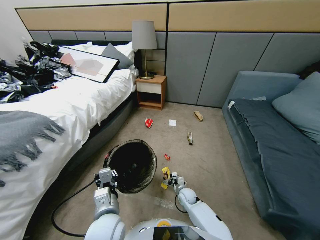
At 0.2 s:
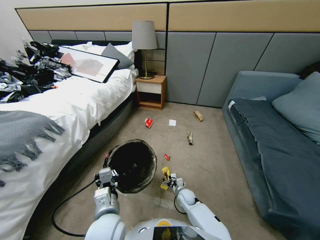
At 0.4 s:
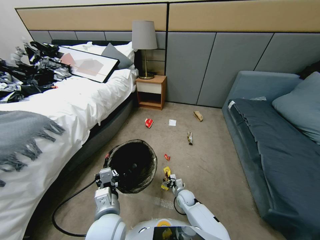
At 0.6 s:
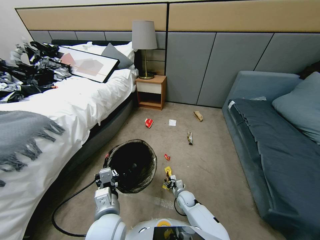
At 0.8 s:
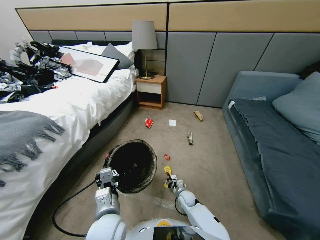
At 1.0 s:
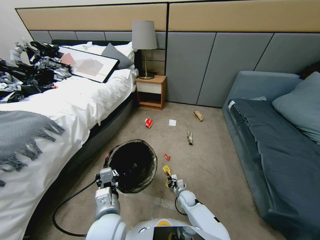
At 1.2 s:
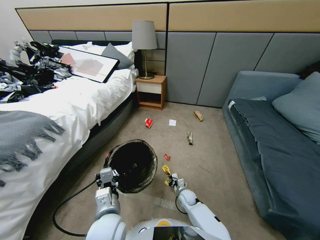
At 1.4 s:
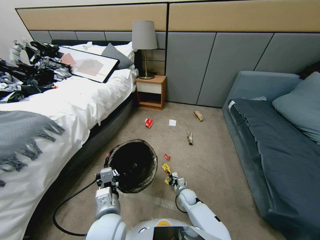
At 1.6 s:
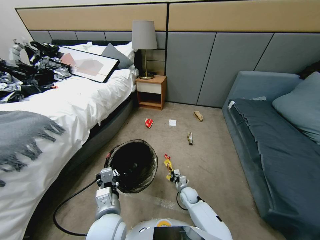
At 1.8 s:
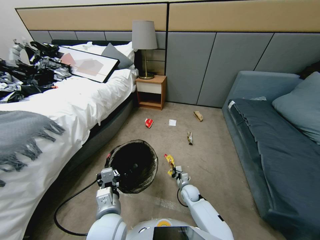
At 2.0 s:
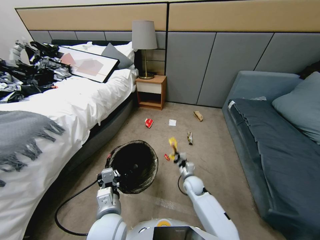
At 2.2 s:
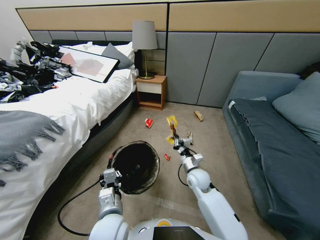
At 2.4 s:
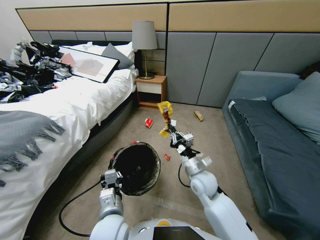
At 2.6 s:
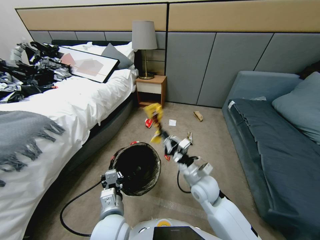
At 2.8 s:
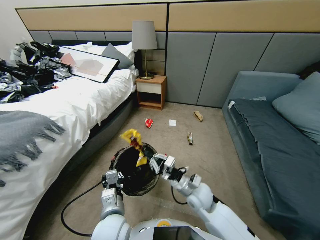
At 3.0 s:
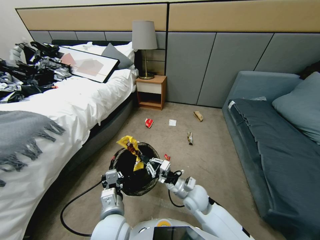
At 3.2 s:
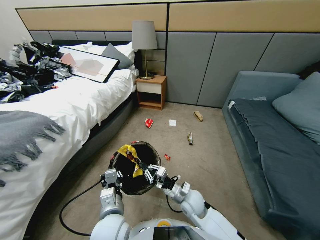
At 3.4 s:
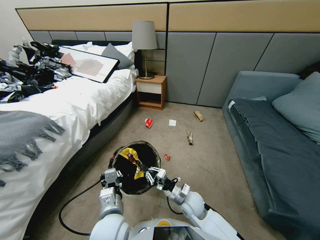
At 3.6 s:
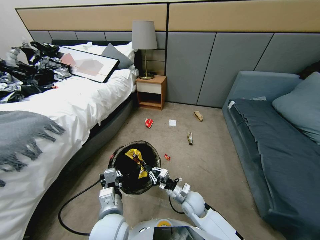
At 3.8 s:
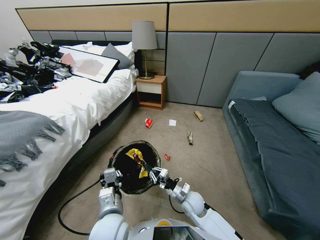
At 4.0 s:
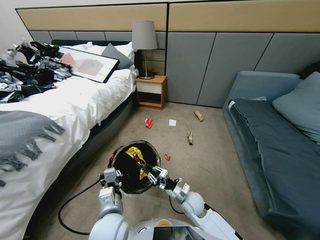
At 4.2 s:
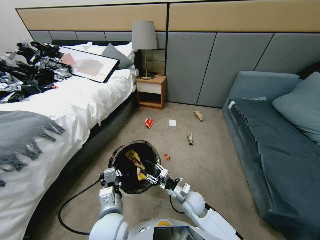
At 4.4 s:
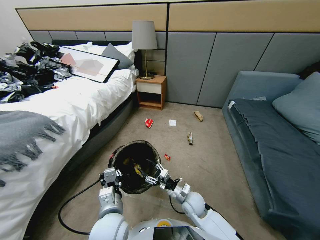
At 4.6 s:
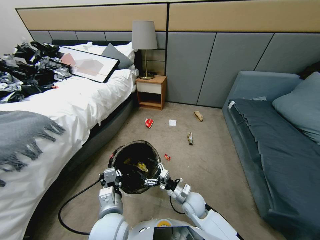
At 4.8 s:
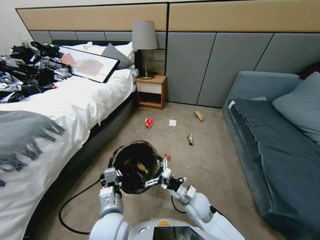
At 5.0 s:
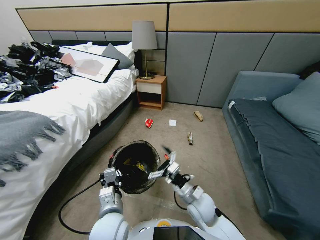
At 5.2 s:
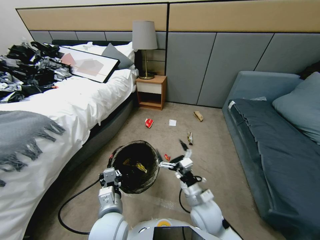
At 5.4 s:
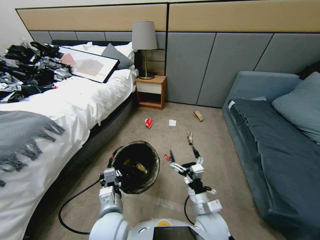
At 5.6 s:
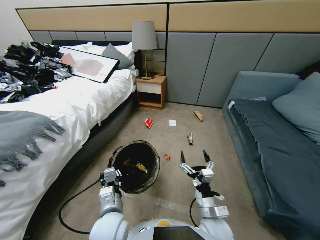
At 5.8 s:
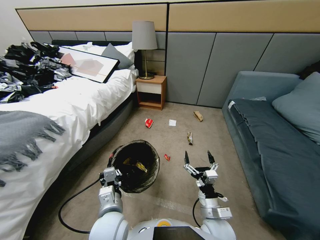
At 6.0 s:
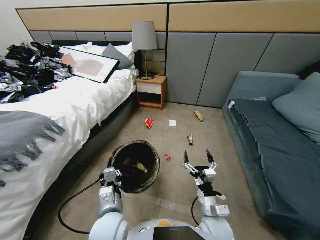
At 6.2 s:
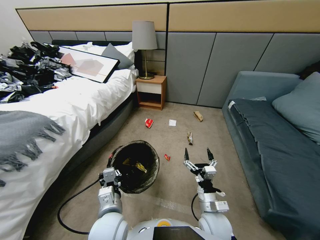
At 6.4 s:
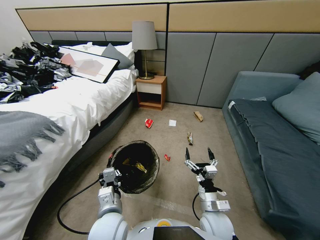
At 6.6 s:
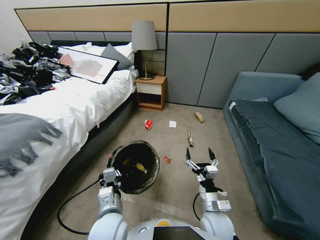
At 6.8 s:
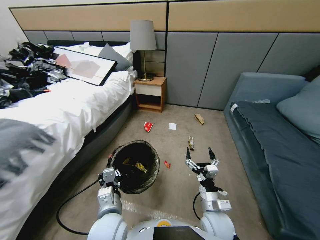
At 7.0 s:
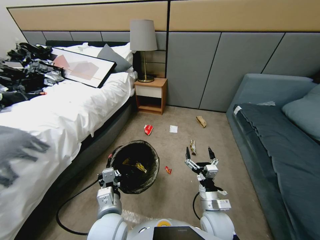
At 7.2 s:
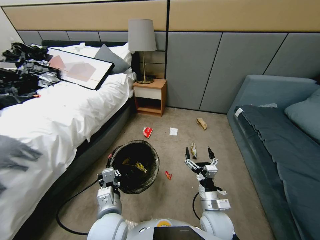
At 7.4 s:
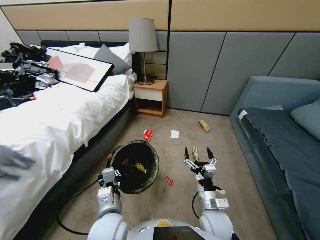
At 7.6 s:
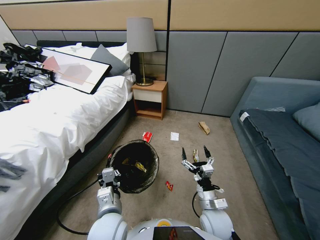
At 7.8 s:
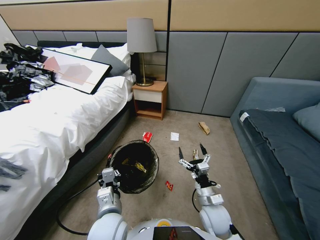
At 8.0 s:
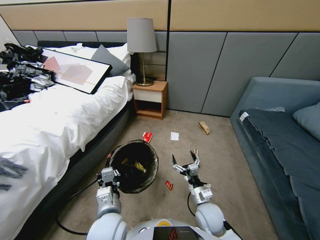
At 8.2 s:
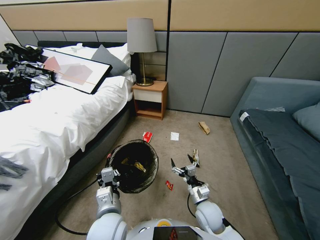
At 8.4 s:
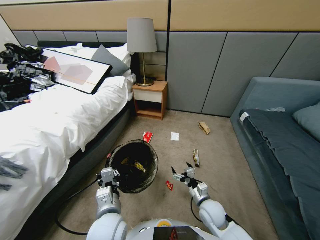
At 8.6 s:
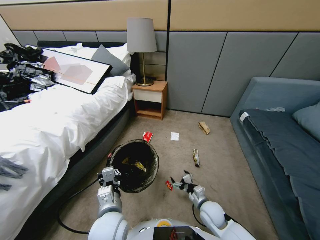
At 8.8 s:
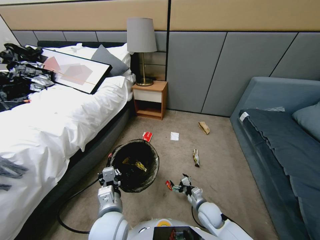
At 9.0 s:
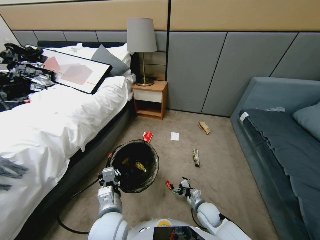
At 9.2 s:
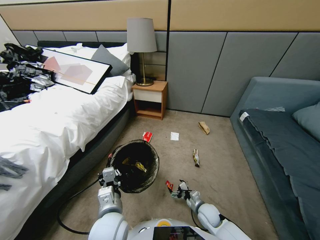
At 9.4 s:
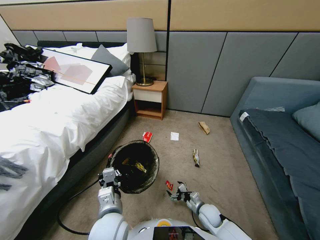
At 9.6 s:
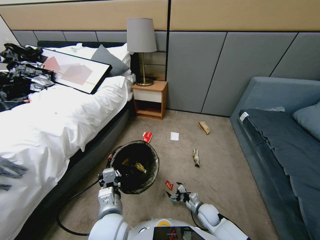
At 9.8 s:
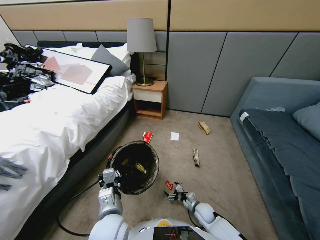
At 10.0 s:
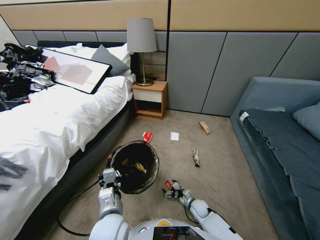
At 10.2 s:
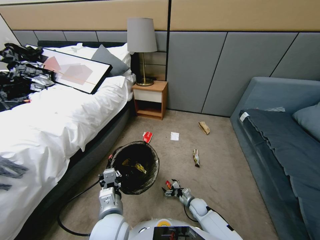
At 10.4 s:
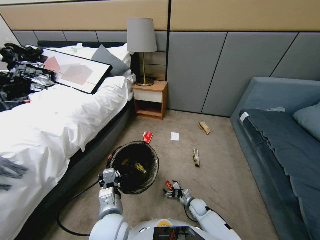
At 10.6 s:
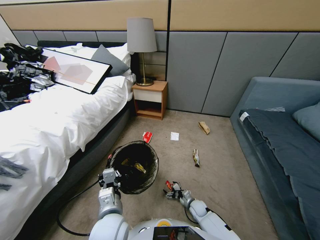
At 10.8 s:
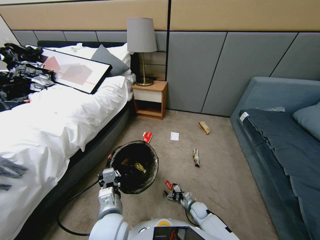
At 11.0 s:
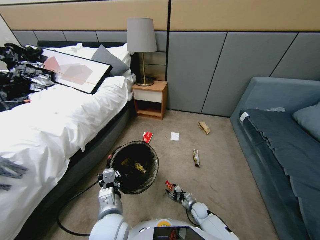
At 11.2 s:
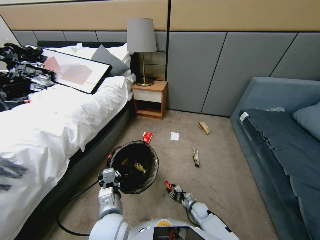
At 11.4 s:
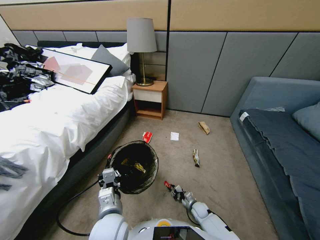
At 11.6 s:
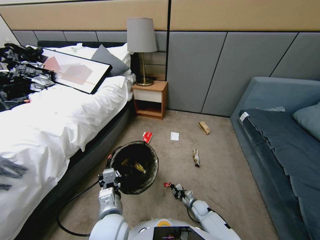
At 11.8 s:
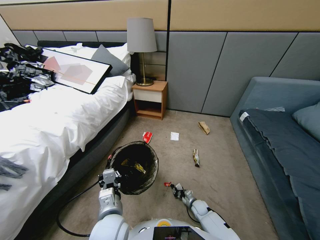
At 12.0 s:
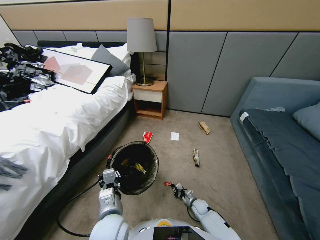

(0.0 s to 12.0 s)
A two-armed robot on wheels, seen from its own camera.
Task of the whole recording: Pick up the trash bin, then pick up the garbage from the floor and place it into the trash bin.
0.0 s - 1.6 s: The right gripper closes its fingers.
1.6 s - 3.0 s: The right gripper goes some 20 cm upward and backward.
3.0 s - 4.4 s: The right gripper shifts by about 5 cm, and opens up.
4.4 s - 6.0 s: The right gripper is displaced backward and upward by some 10 cm.
7.6 s - 9.0 s: The right gripper goes approximately 15 cm downward.
9.0 s - 10.4 s: The right gripper shifts approximately 10 cm downward.
10.4 s - 12.0 s: The right gripper closes its fingers.

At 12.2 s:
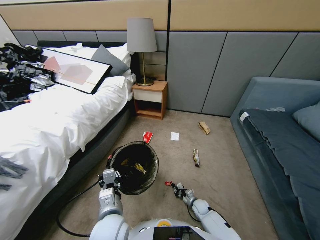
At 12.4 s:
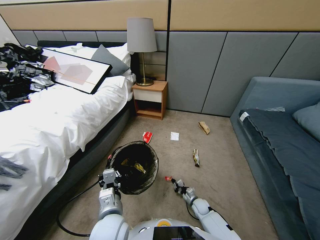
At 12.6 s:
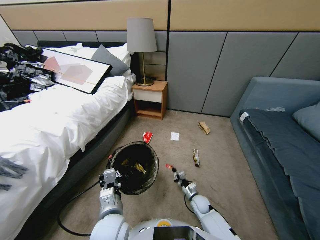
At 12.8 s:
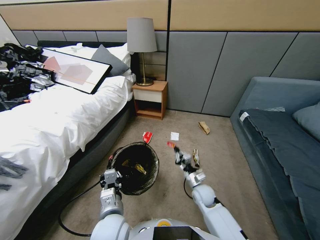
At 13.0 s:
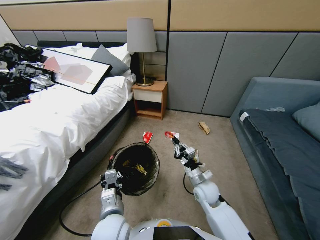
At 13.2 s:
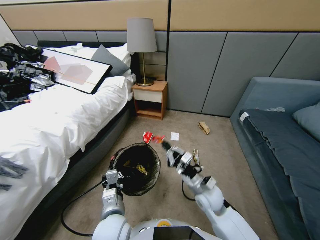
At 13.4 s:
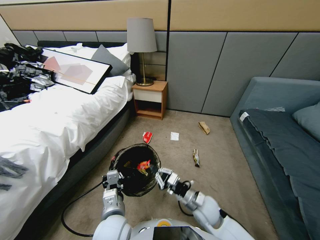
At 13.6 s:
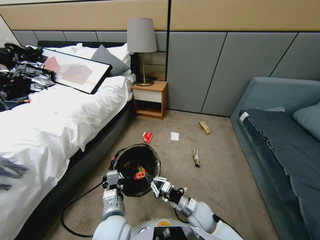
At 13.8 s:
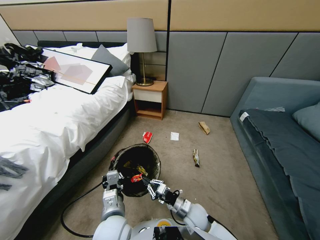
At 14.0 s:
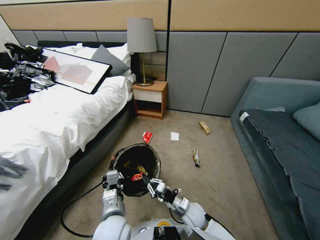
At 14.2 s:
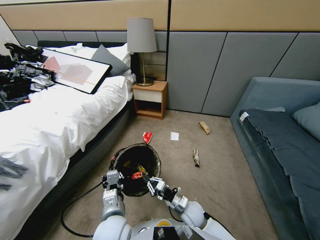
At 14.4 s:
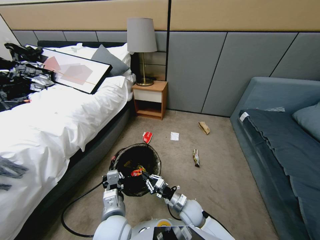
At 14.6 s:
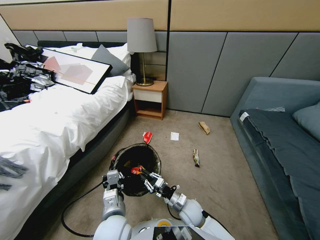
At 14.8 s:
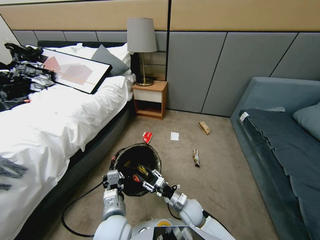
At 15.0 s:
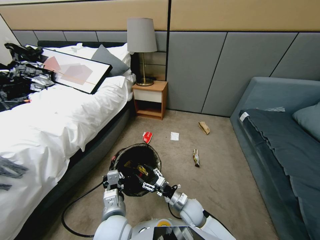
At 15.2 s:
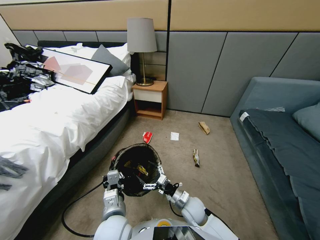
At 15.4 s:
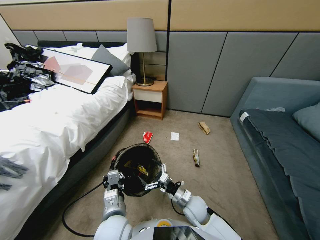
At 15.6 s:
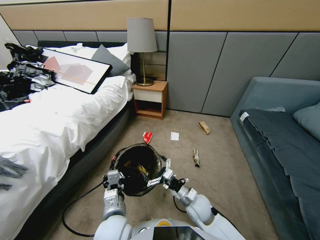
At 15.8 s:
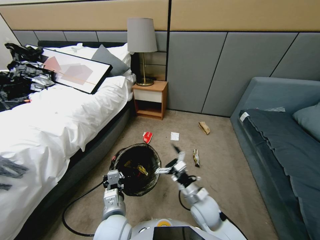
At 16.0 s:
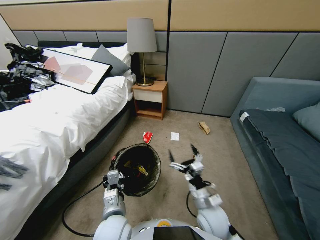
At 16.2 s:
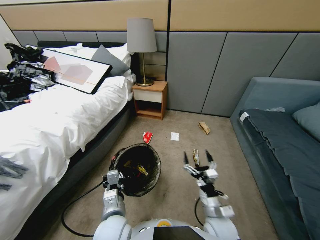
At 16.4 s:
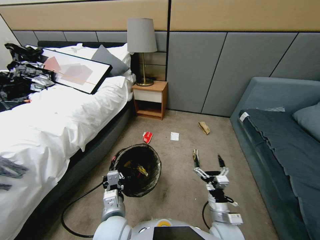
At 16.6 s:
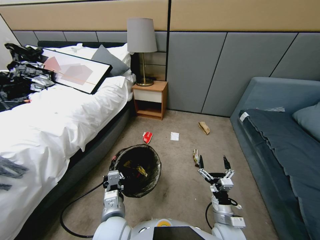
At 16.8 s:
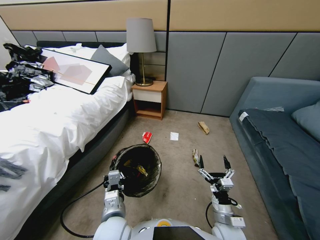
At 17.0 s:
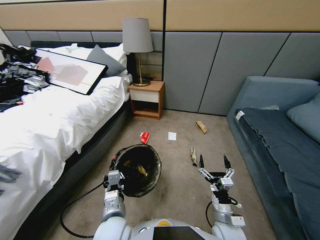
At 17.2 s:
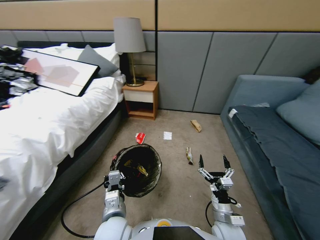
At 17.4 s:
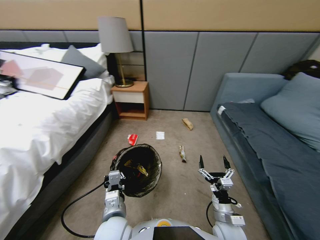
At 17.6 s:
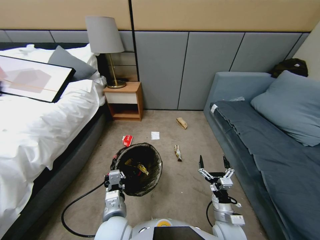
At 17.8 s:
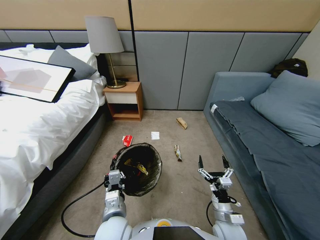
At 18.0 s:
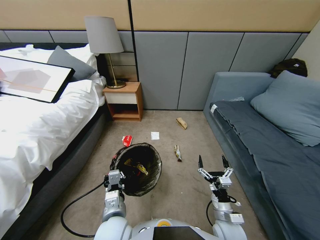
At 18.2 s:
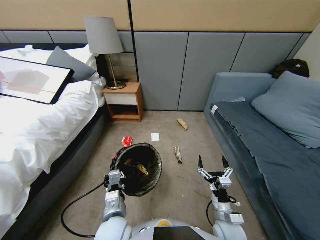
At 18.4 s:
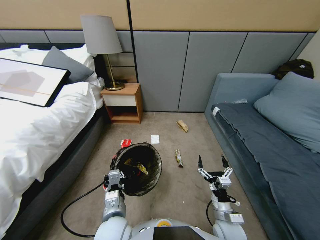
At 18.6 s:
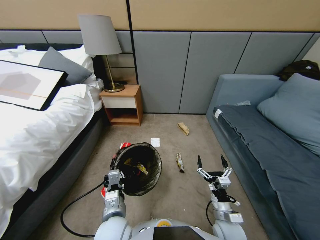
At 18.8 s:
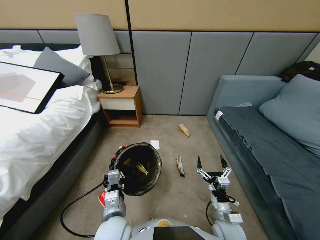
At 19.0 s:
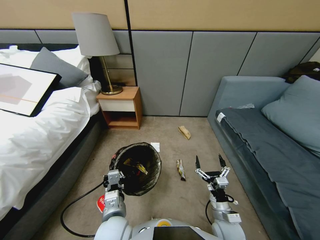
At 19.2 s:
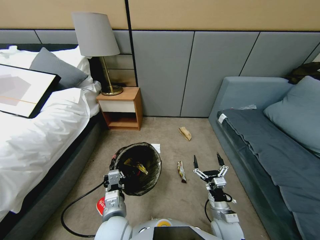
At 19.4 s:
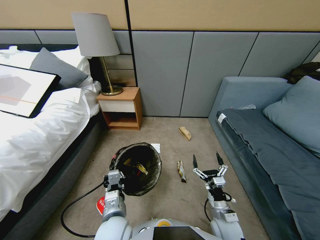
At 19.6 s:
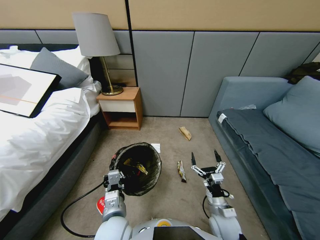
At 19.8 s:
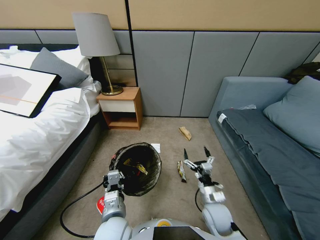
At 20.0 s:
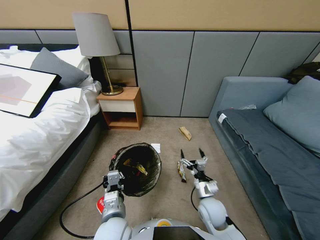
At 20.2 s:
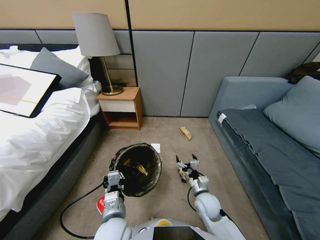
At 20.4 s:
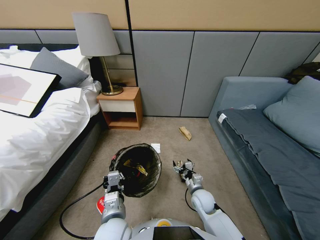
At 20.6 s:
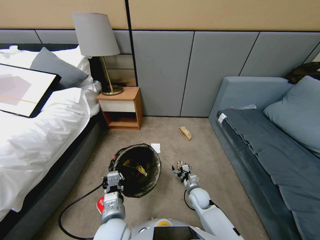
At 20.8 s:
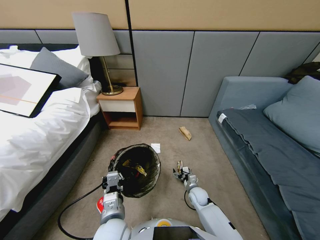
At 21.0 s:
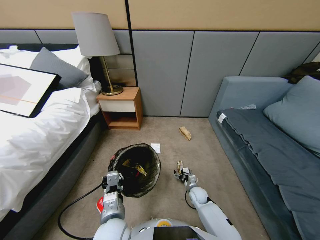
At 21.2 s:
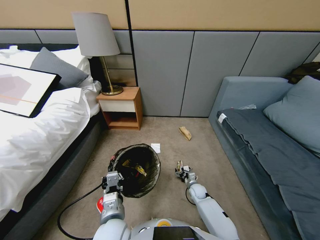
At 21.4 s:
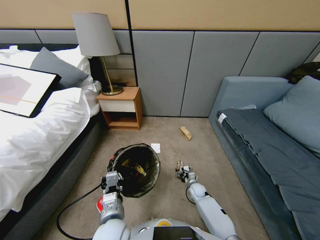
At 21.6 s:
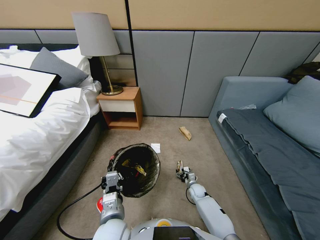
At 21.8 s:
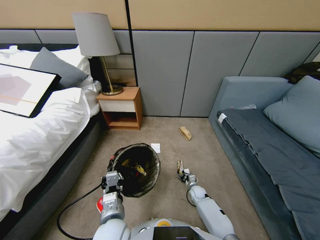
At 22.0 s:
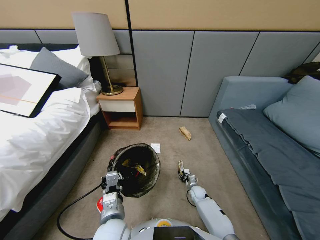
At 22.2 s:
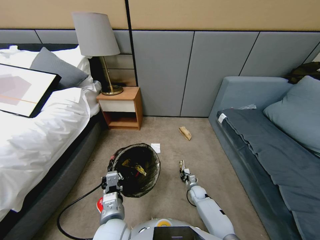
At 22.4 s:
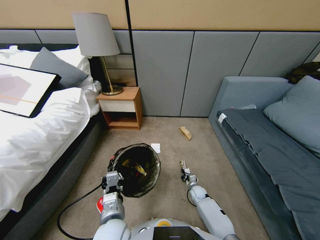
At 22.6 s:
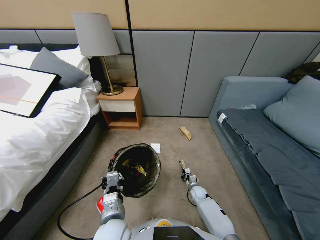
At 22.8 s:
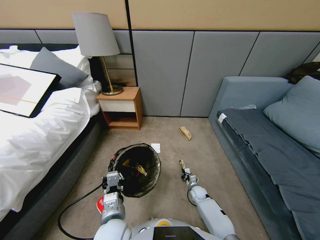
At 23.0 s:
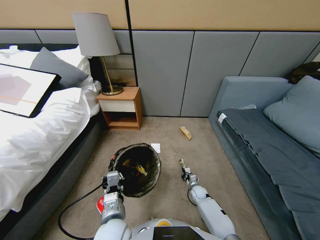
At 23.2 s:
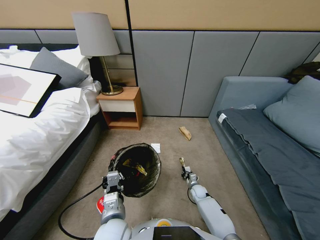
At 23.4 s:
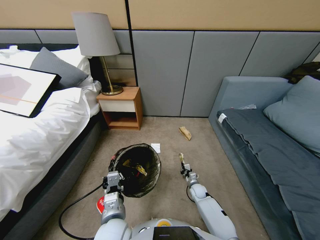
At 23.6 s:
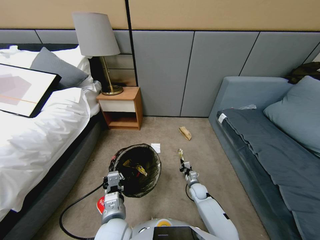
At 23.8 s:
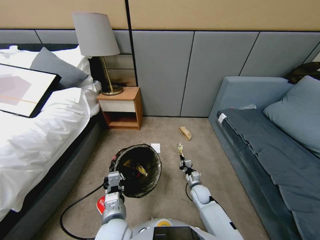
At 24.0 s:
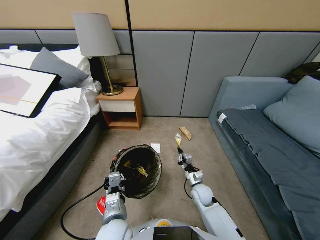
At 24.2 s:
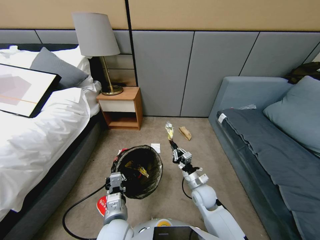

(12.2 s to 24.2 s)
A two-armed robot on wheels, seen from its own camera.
Task of the whole recording: Pick up the trash bin, then pick up the garbage from the floor and place it into the trash bin.
12.2 s - 13.8 s: The right gripper goes some 20 cm upward and to the left.
13.8 s - 15.2 s: The right gripper opens up.
15.2 s - 16.6 s: The right gripper shifts roughly 10 cm to the right and backward.
18.2 s - 19.8 s: The right gripper goes about 5 cm forward.
19.8 s - 21.2 s: The right gripper heads downward and forward, covering approximately 25 cm.
21.2 s - 22.6 s: The right gripper closes.
22.6 s - 24.2 s: The right gripper moves upward, approximately 25 cm.
